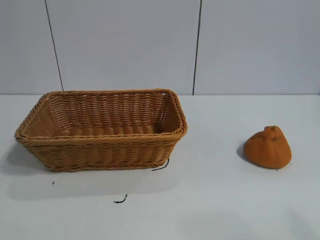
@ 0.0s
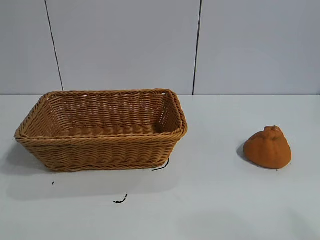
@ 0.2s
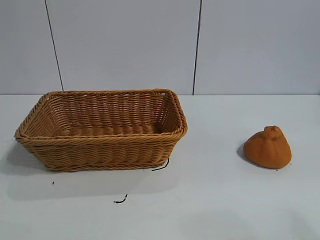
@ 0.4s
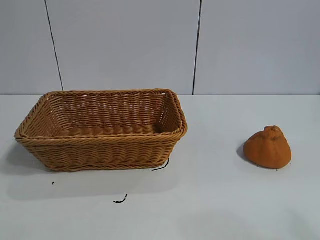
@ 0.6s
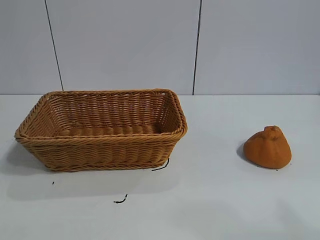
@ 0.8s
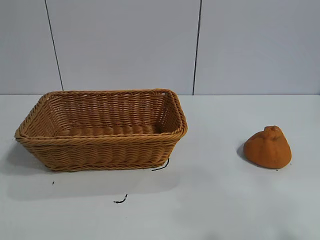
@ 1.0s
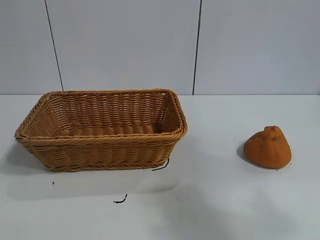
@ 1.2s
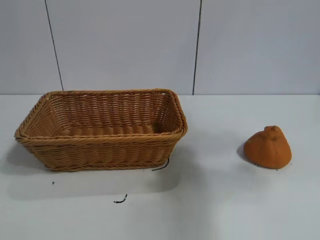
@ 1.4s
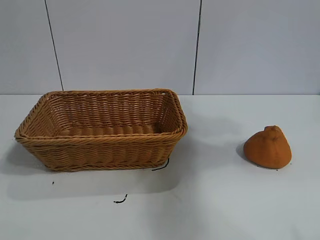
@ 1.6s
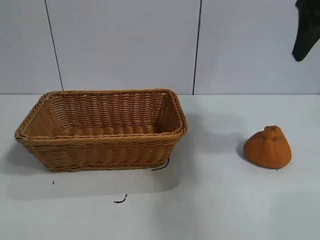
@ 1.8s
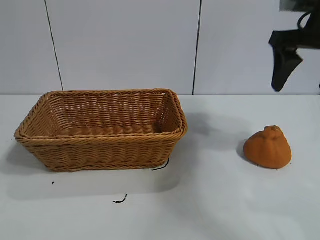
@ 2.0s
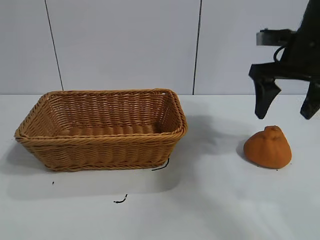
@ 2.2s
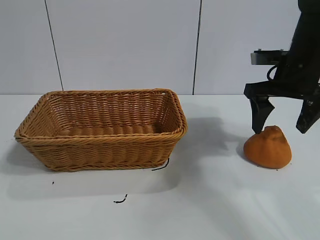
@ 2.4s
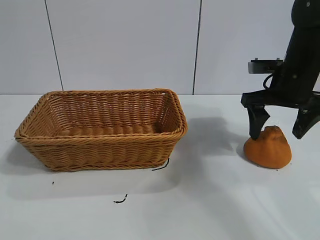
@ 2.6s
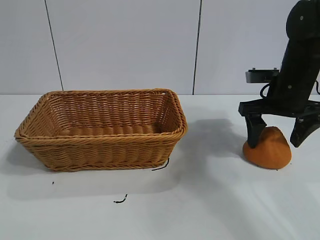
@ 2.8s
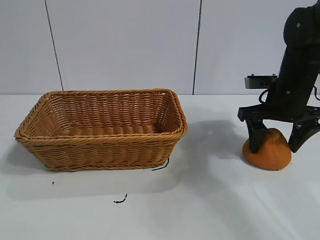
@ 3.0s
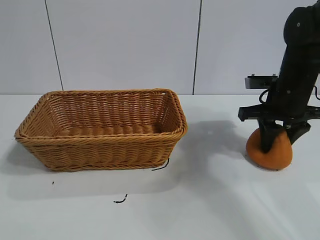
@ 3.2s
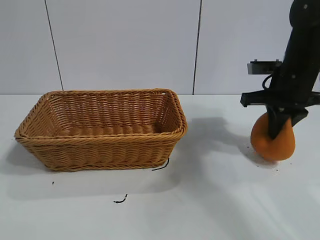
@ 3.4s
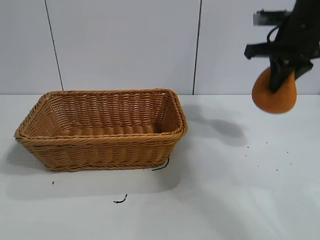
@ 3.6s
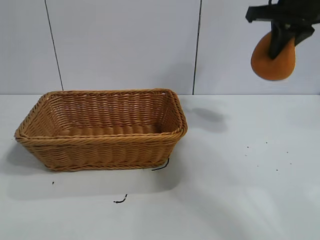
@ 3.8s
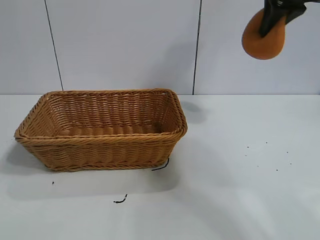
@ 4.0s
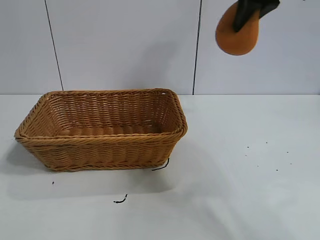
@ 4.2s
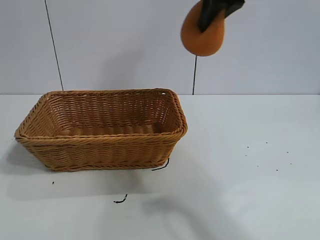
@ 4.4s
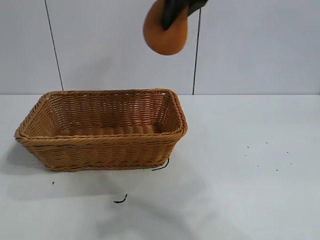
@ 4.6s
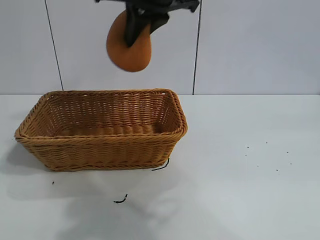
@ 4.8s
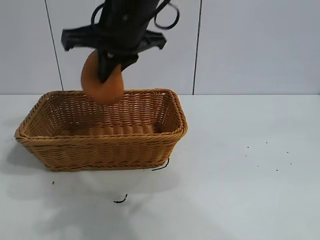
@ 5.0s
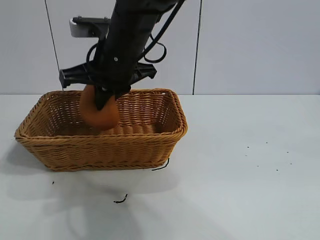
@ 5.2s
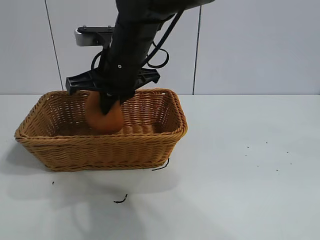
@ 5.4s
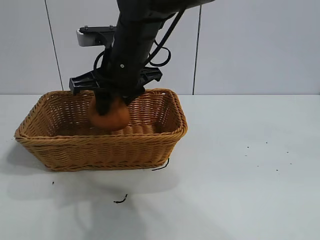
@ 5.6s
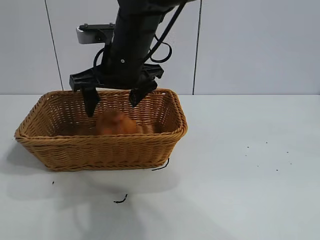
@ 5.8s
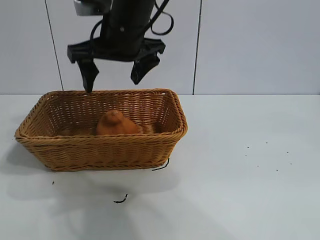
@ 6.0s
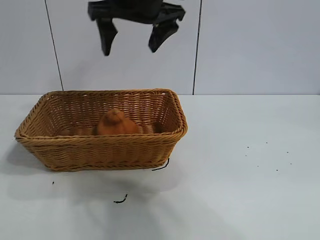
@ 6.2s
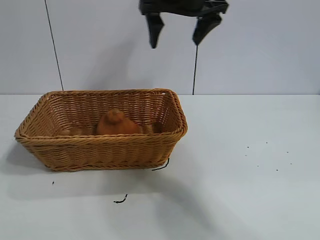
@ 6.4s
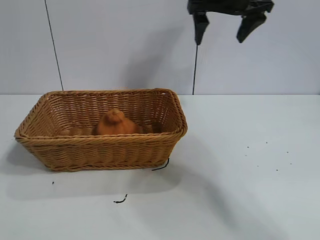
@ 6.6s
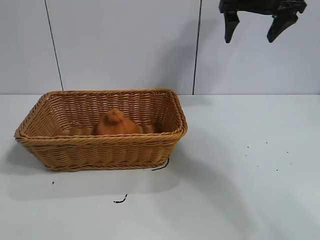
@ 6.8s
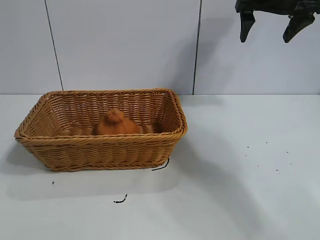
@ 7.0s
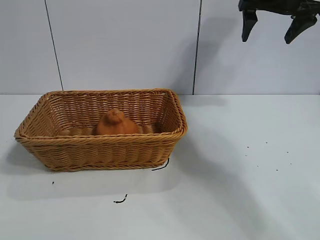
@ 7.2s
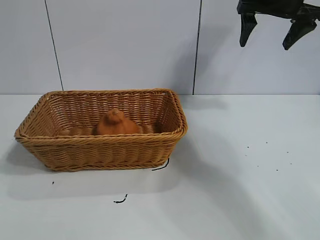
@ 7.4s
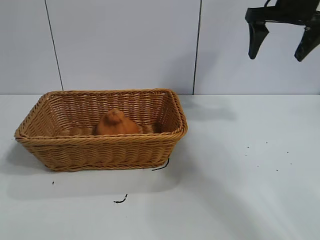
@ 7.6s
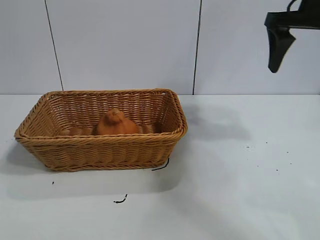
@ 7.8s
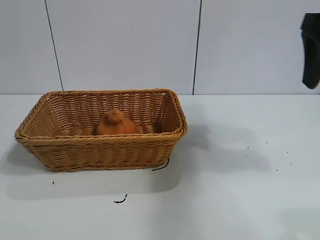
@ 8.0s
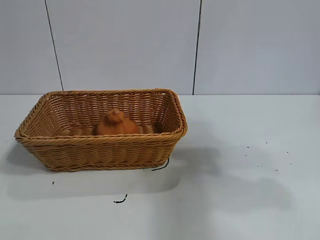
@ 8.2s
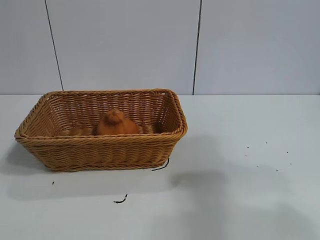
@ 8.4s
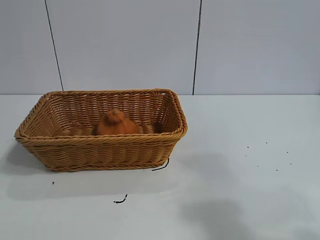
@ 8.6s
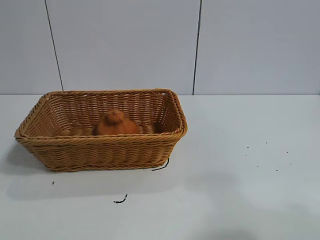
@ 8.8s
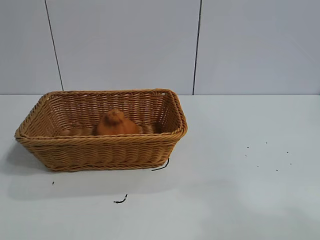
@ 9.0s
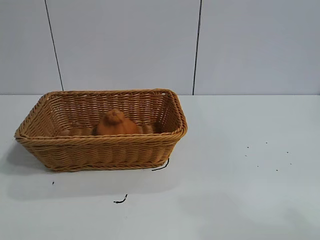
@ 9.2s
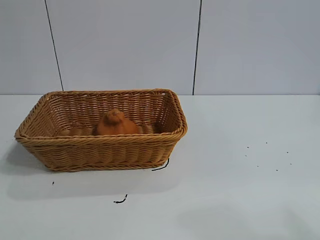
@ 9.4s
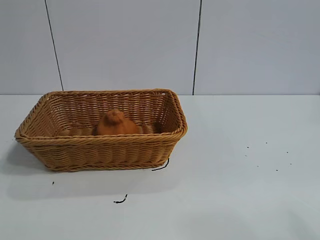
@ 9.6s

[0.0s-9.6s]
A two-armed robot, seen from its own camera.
Task of the whole recording: pick up the orange and put it into the basket.
Step, 0.8s to 3.2s: Grasp the orange with right gripper.
Step, 3.6s to 5.6s: Place the orange in the basket with right gripper.

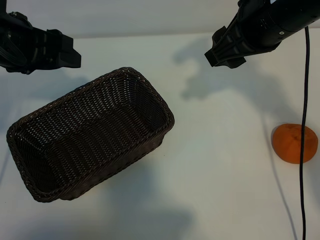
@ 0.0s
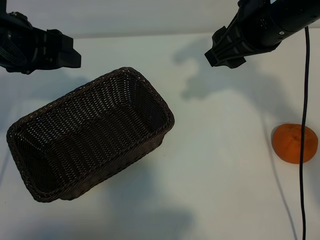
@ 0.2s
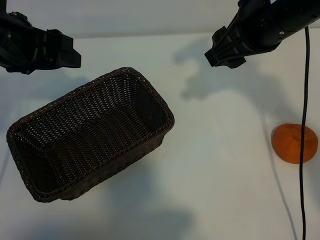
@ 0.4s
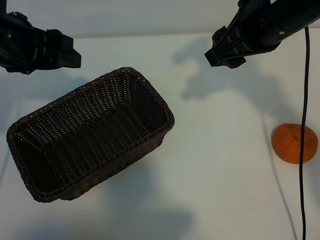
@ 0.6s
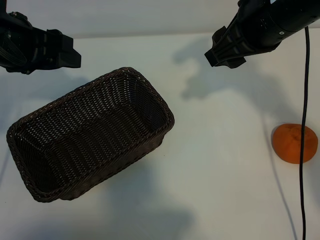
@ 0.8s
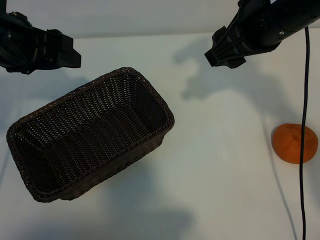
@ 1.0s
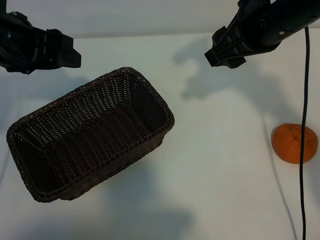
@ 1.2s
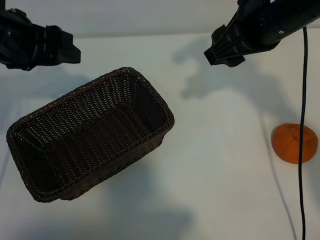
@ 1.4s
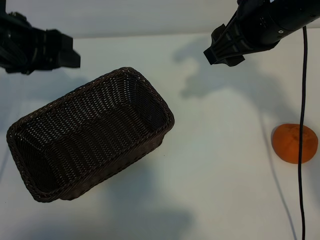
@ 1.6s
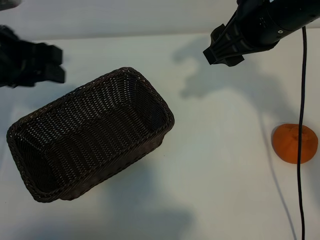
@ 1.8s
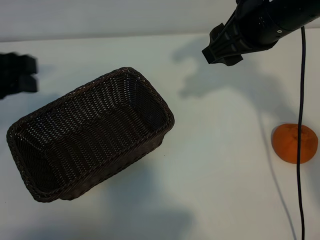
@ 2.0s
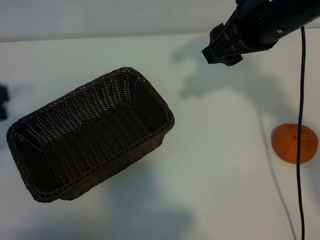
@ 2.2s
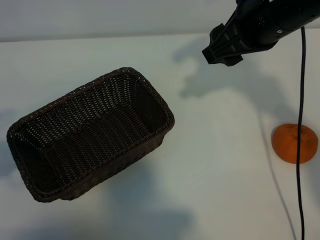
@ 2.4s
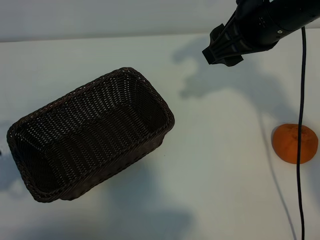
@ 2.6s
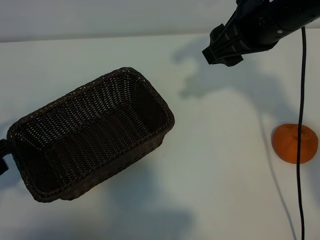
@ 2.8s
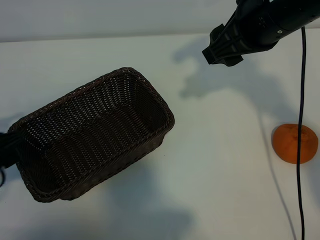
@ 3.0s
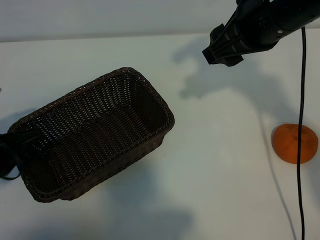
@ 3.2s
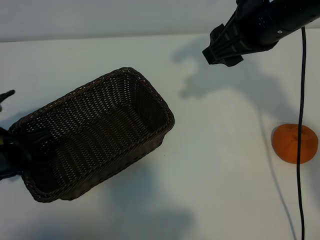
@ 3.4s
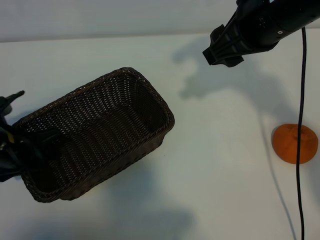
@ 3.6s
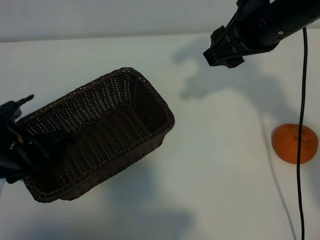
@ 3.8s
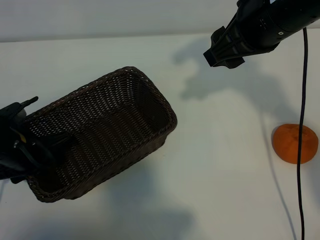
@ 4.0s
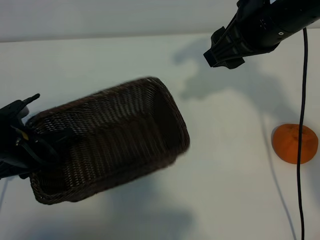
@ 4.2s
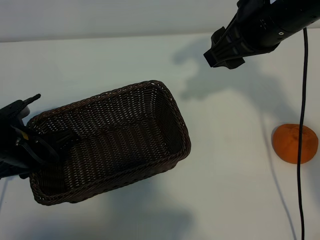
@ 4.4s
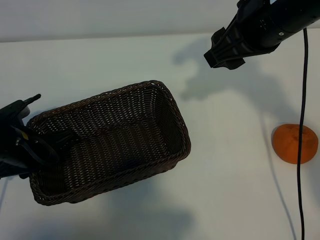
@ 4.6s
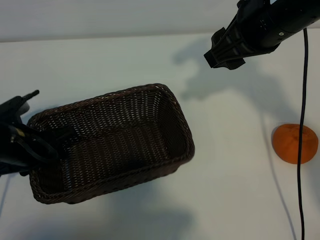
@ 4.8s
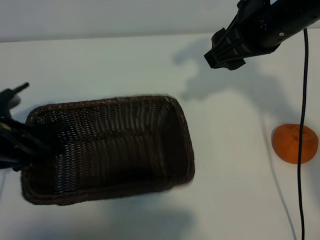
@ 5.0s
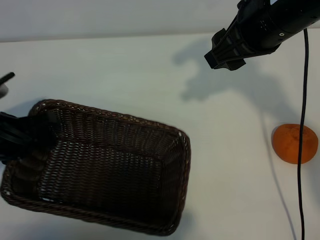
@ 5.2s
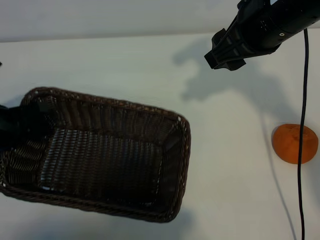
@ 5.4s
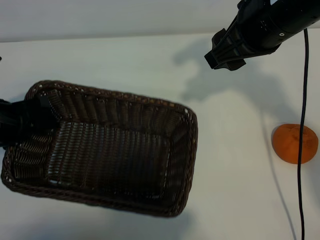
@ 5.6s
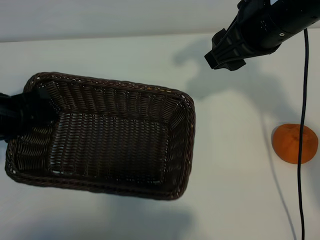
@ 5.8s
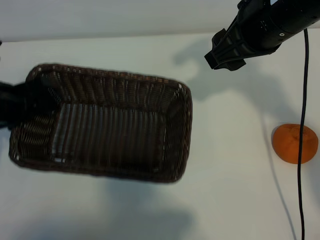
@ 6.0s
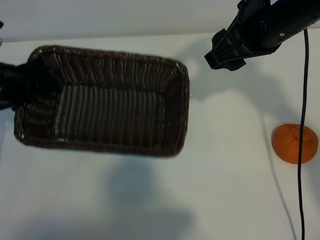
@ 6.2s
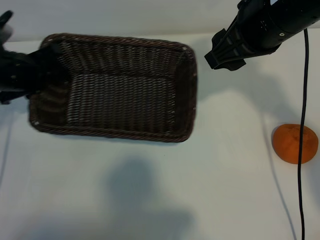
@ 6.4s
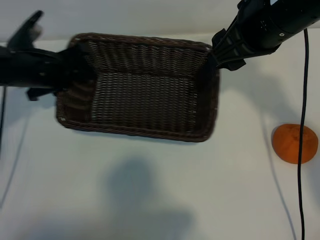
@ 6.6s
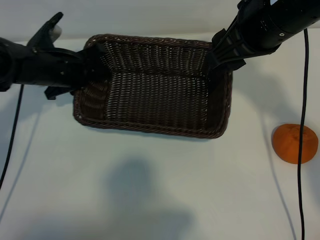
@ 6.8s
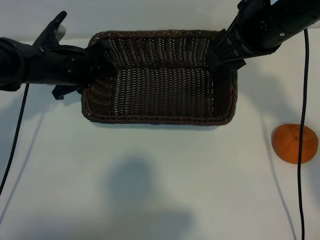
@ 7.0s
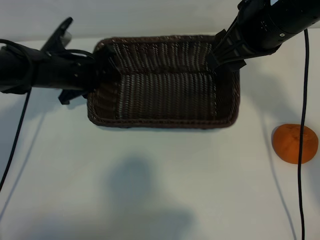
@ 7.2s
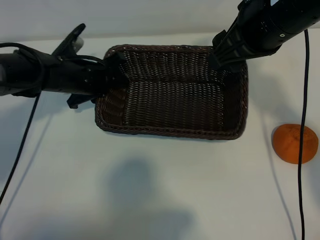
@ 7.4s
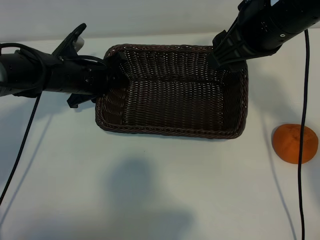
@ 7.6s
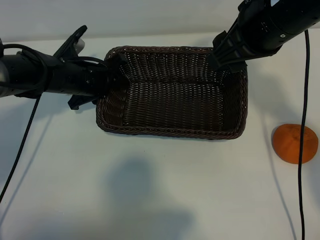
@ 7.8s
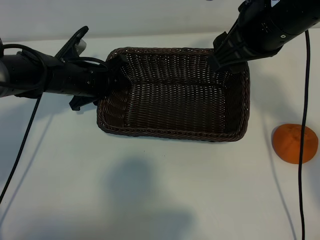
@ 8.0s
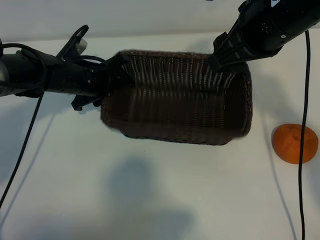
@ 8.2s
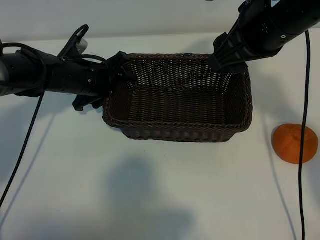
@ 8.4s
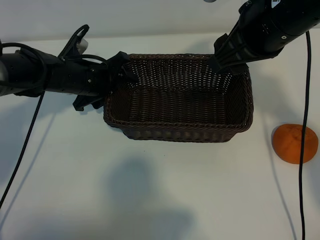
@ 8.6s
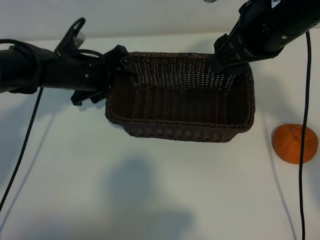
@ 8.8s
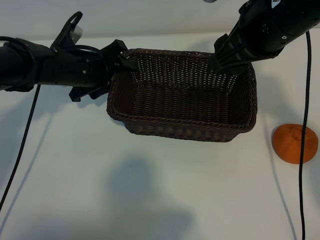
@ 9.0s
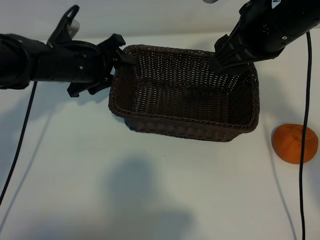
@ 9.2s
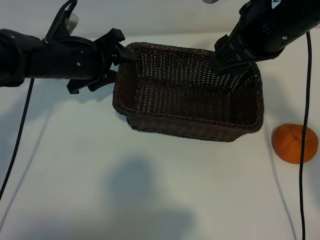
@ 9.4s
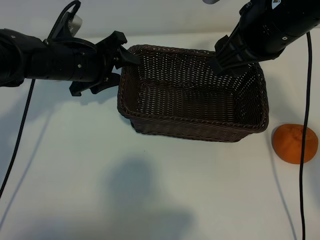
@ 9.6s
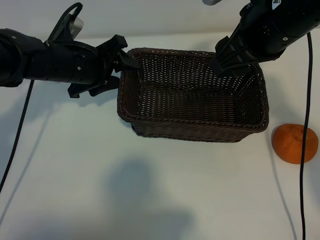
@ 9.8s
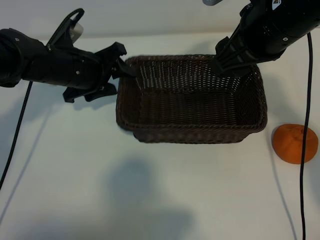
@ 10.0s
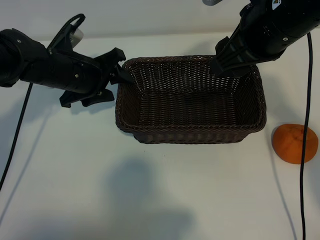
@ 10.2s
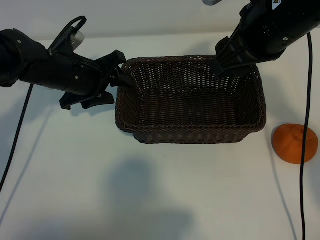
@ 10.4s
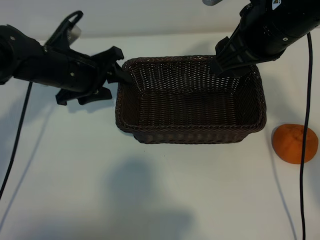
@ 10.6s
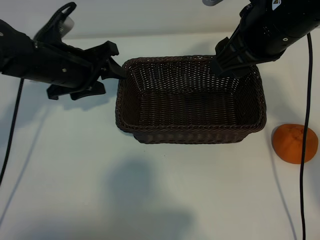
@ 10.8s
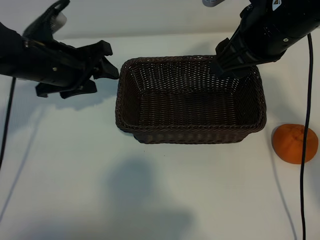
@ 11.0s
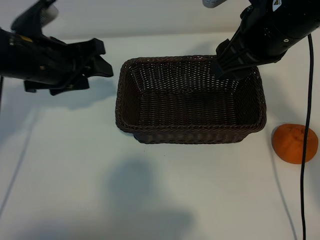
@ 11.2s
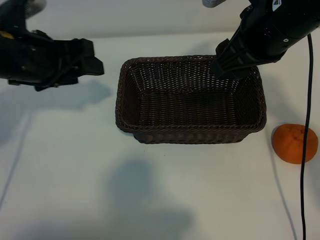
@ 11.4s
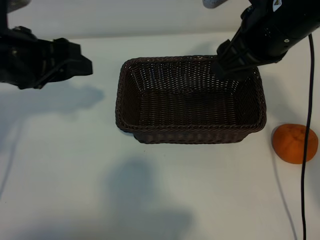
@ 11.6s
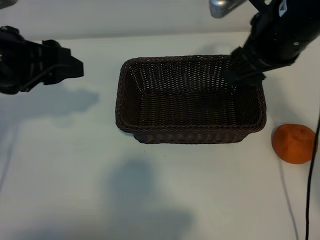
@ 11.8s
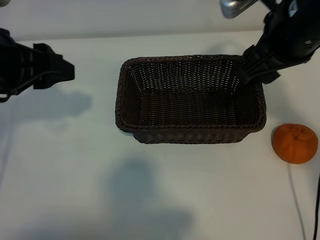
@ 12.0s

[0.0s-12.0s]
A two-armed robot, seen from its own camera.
Task of the whole recording: pick up the orange and put it into the basket.
Step, 1.2s to 4.2s: Grasp the basket with left gripper.
Step, 4.4s to 10.0s: Place the basket in the center of view with left gripper.

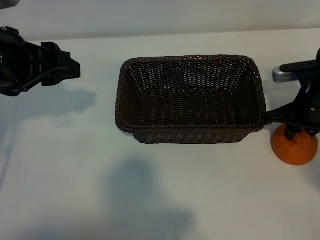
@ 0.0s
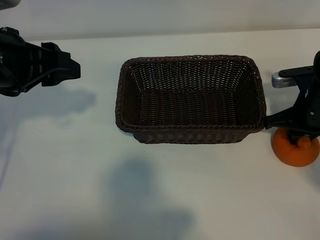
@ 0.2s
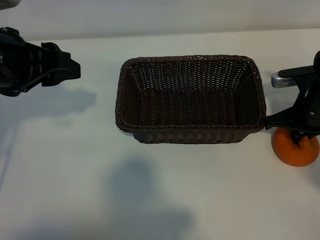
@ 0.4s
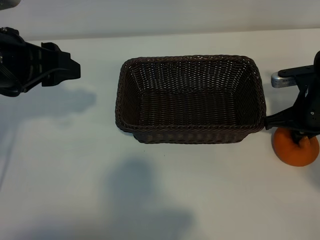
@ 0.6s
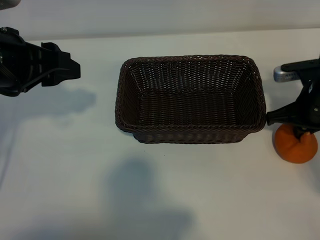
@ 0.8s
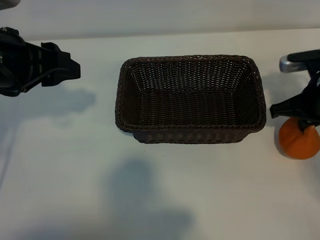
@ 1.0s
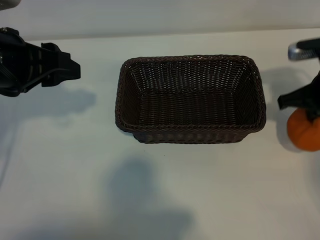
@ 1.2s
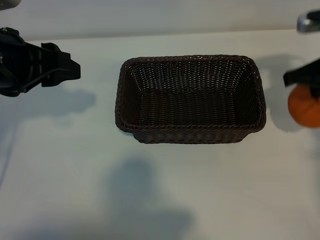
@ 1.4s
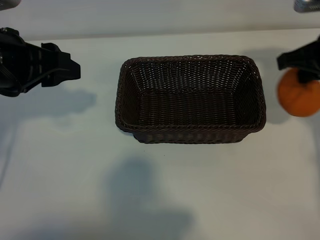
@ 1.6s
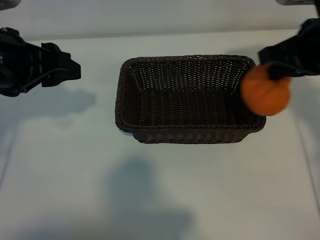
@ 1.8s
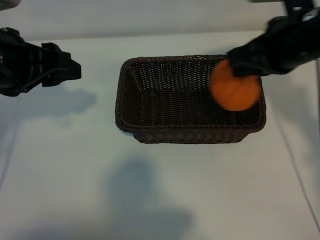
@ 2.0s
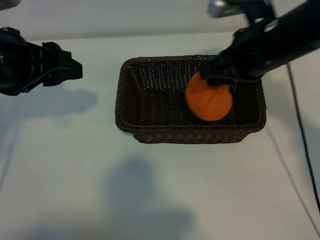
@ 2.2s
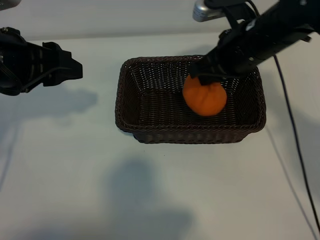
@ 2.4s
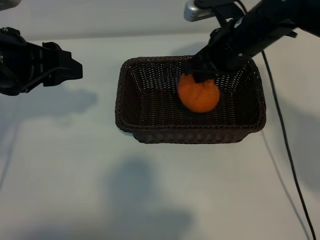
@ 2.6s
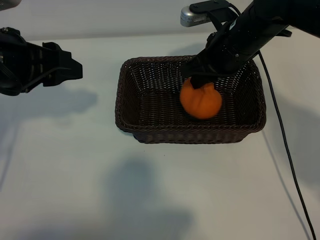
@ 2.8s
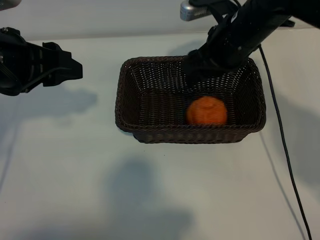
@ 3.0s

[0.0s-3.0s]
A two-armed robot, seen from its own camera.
Task of the whole recording: pick up the orange and put it into the basket.
Step, 0.8s to 3.0s: Place the orange in the basket with right gripper.
